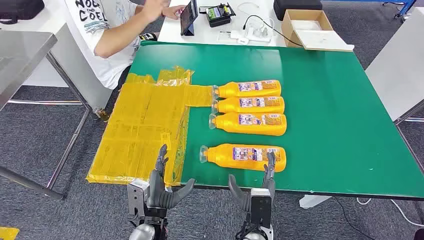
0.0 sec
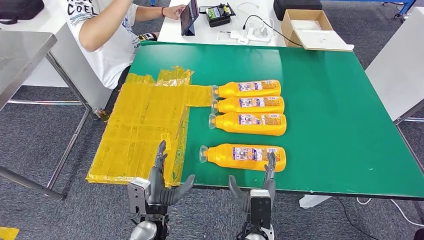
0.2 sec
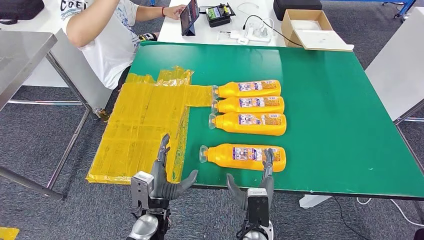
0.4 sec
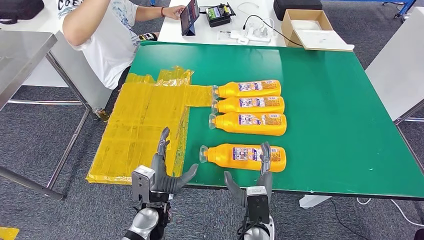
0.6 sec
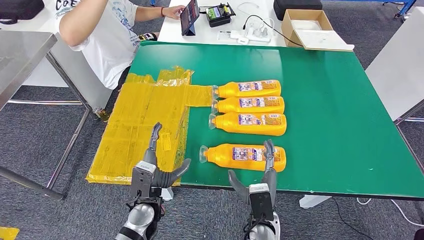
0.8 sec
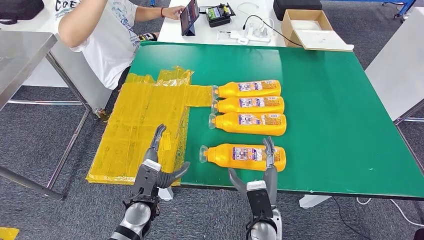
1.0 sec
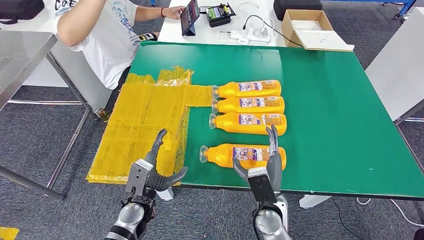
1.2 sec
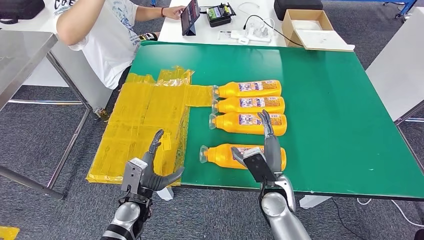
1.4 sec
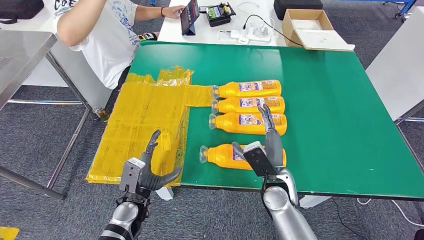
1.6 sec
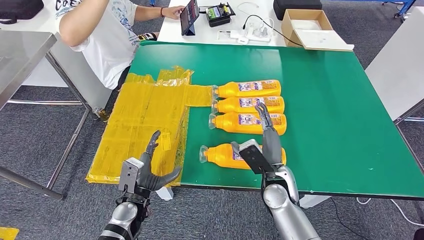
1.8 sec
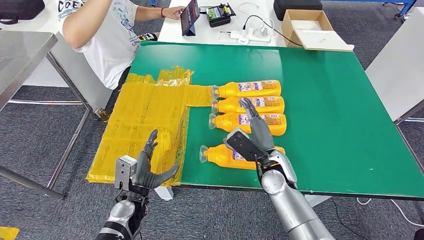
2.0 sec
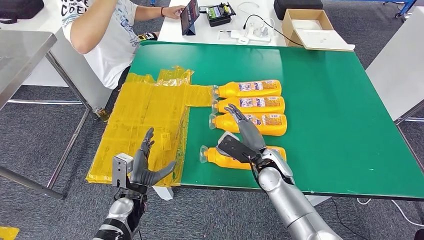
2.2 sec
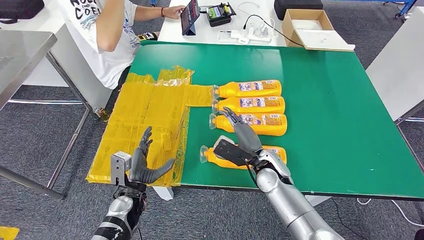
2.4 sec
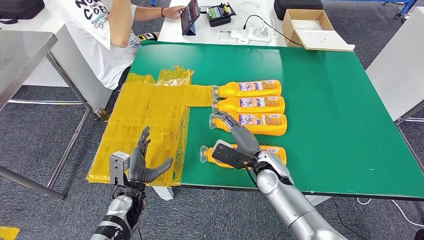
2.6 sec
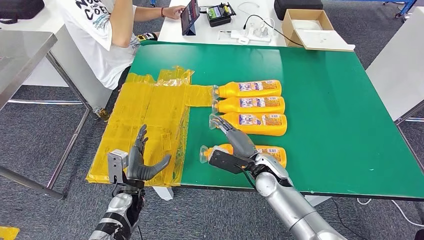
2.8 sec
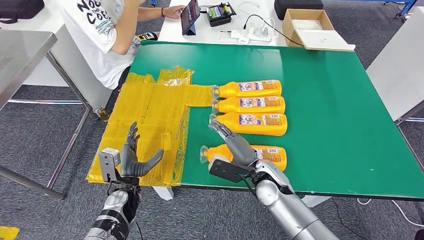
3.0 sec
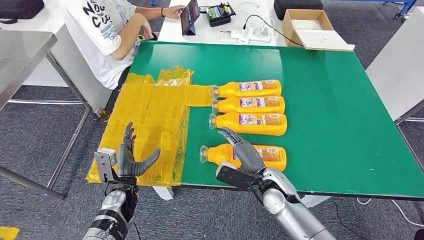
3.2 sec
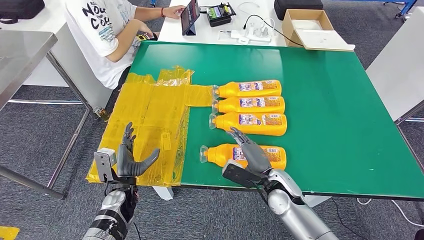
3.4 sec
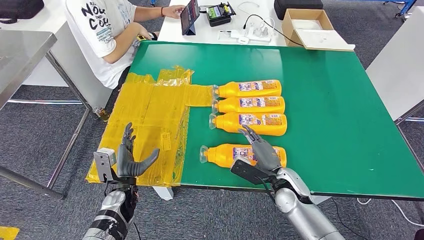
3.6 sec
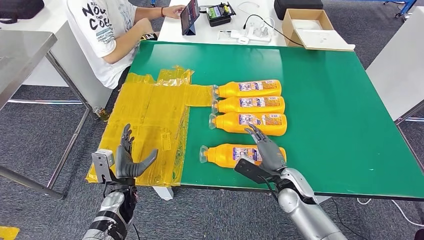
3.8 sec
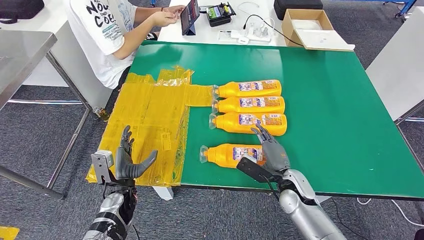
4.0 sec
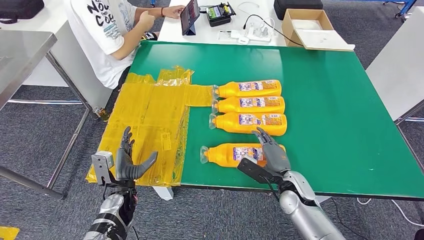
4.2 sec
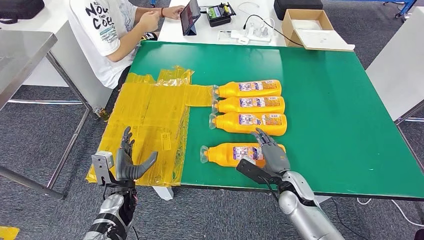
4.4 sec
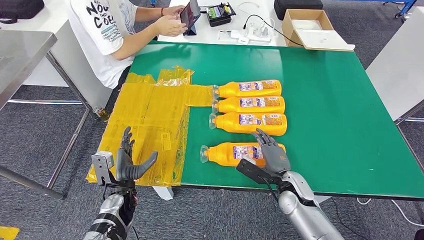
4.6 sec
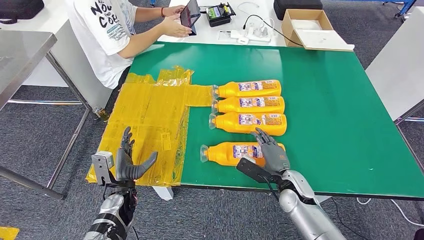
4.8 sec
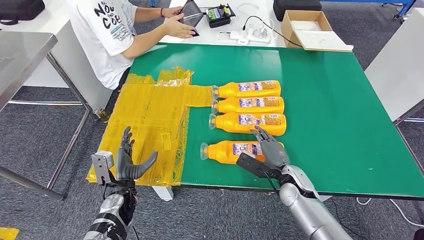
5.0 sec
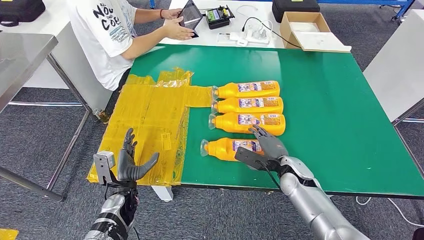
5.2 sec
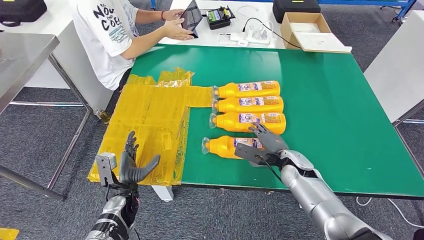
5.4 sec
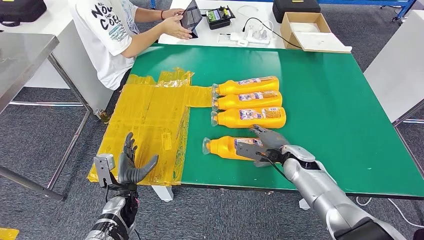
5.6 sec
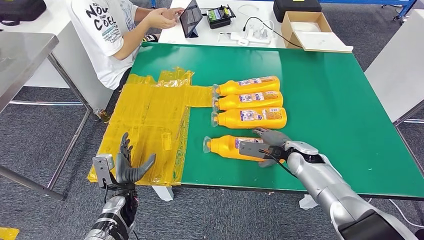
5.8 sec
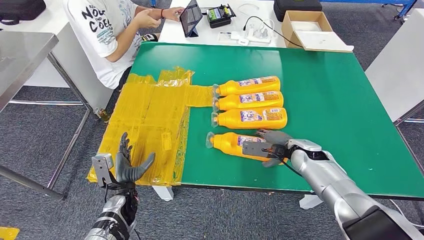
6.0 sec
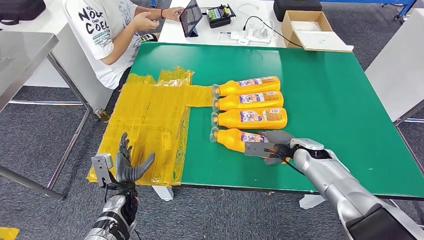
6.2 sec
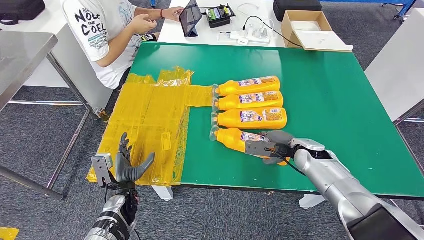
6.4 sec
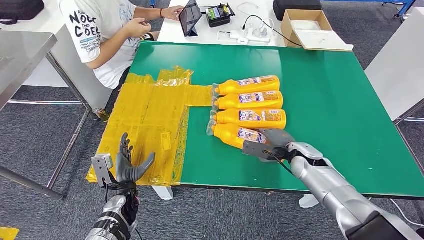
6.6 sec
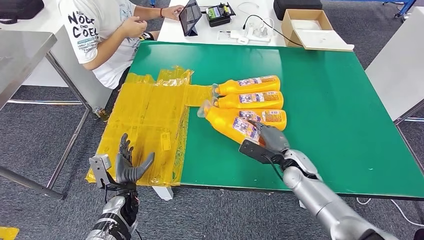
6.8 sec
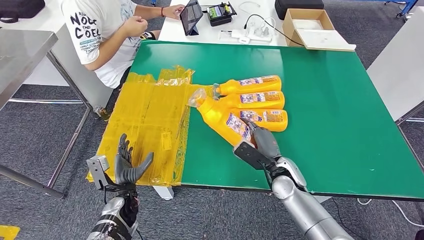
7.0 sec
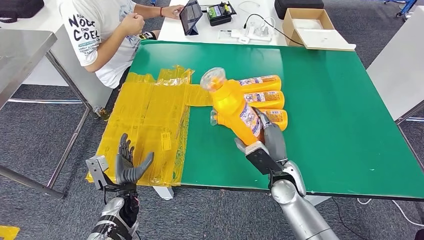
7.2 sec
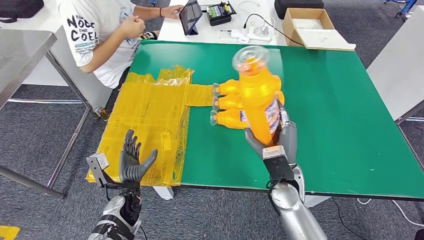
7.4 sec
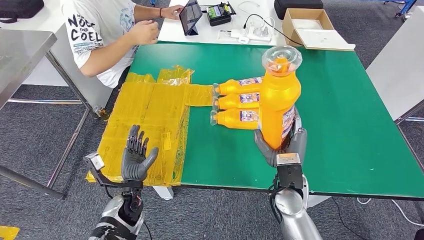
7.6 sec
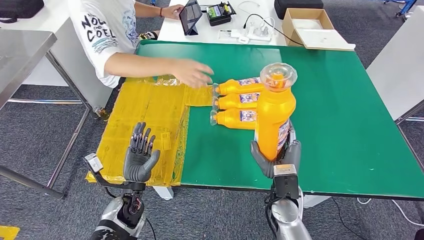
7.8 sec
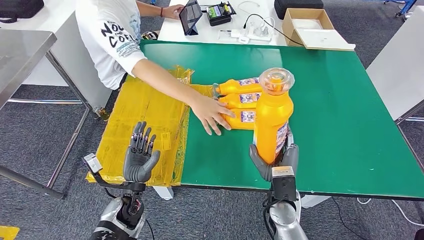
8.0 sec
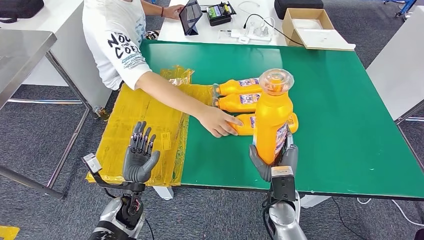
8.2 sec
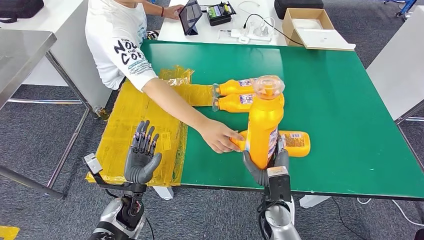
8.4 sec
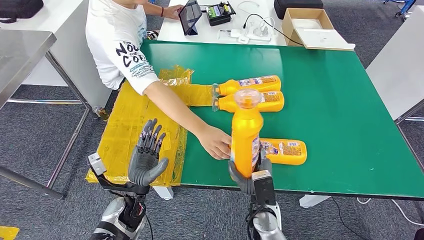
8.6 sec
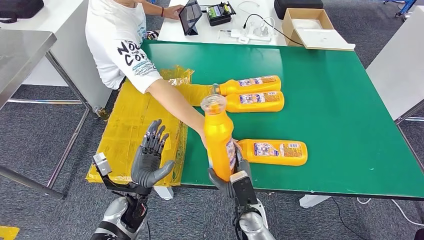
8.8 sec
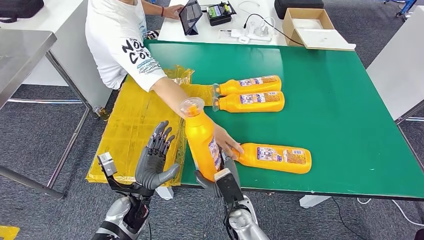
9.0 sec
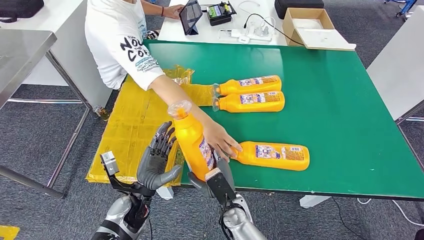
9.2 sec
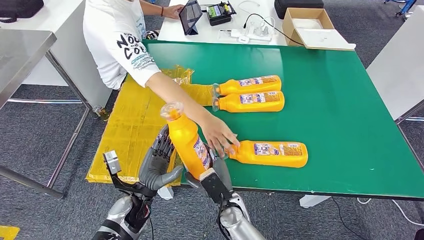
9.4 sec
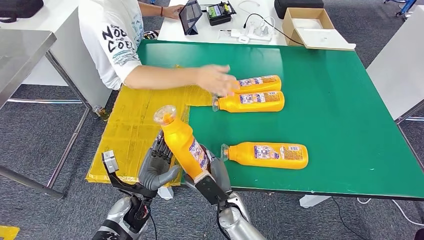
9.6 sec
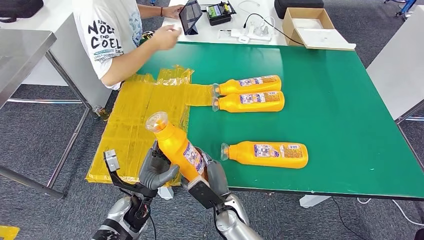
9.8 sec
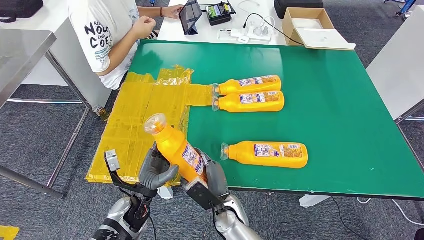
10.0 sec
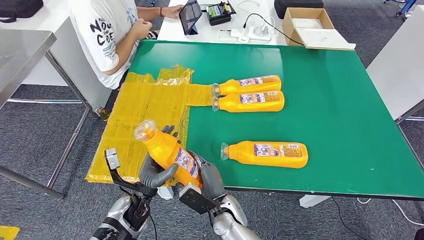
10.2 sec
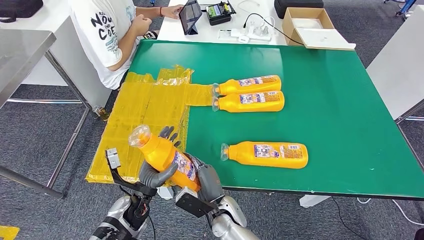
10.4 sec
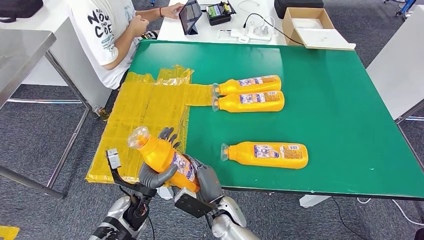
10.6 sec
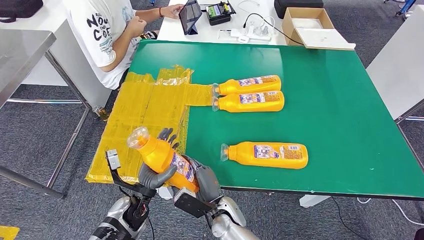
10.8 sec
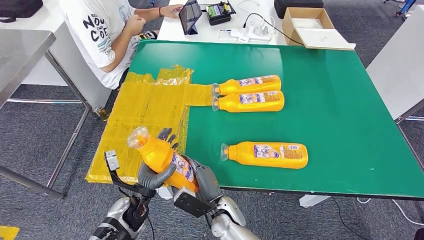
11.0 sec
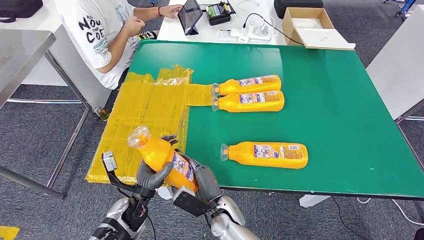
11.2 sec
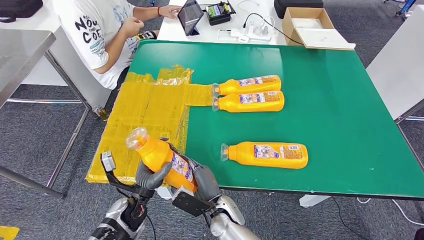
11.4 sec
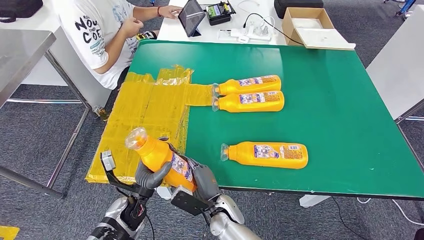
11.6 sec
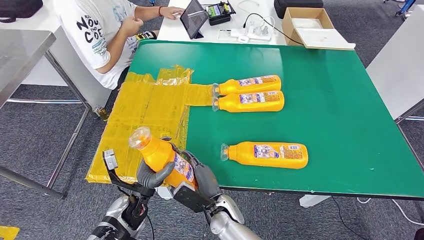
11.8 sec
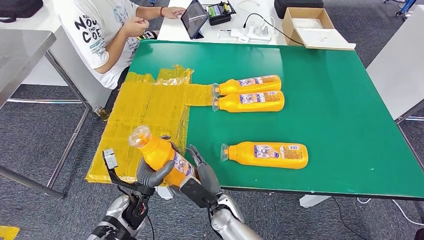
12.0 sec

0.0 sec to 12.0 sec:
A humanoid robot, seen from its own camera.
Step, 0.0 sec to 7.4 sec: Take the fast-moving consumer goods bottle from the table.
3.0 sec to 4.4 sec: The right hand goes roughly 10 cm to the right.
4.4 sec to 6.0 sec: The right hand goes roughly 10 cm forward and upward.
10.4 sec to 12.0 sec: The hands make only small movements.

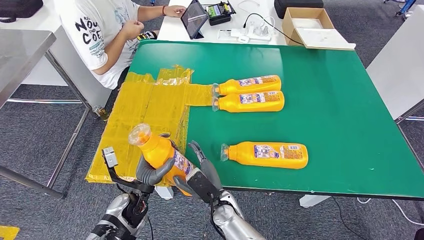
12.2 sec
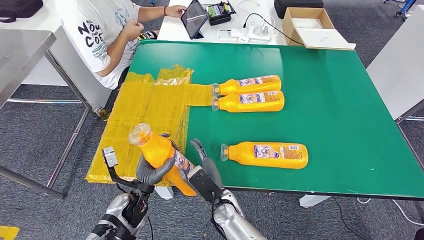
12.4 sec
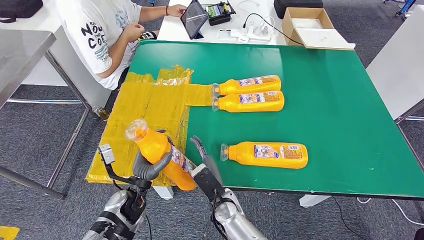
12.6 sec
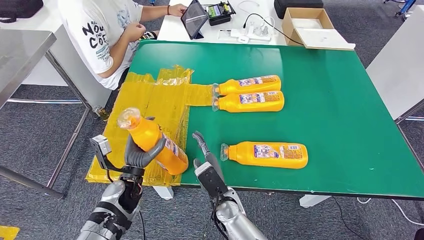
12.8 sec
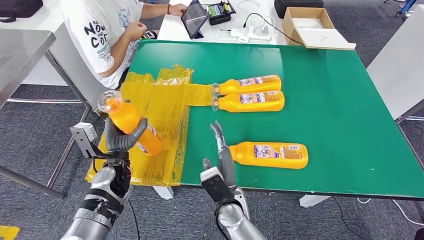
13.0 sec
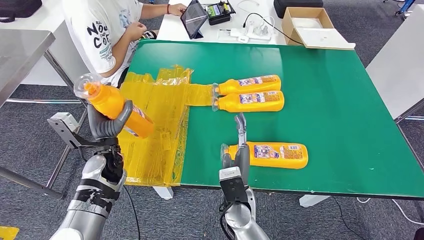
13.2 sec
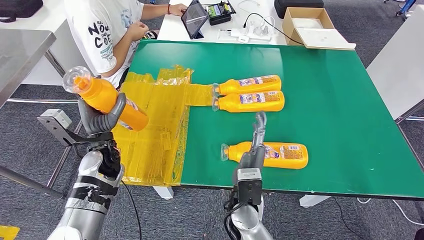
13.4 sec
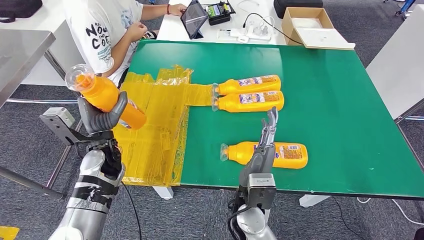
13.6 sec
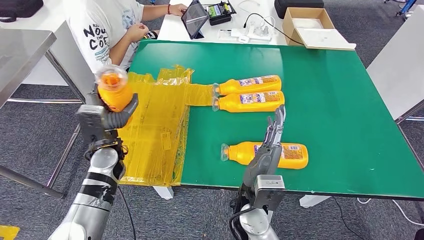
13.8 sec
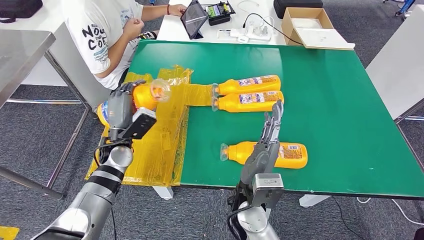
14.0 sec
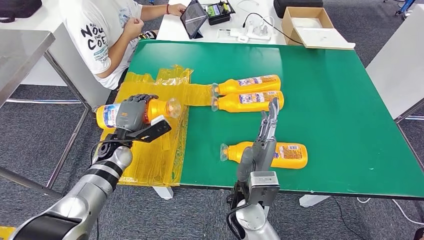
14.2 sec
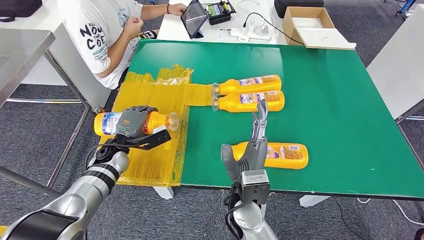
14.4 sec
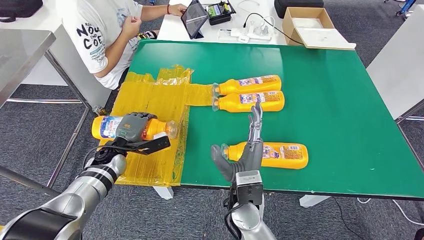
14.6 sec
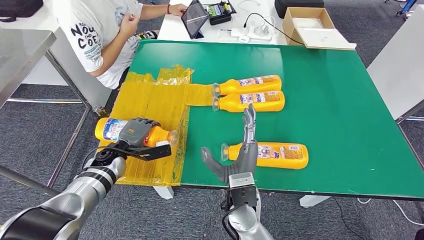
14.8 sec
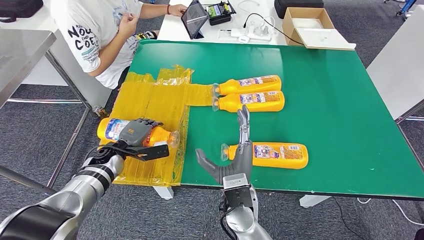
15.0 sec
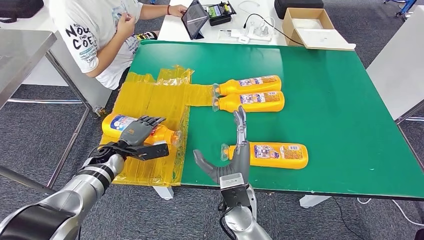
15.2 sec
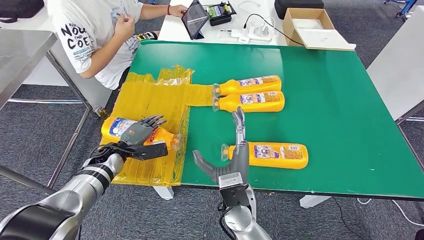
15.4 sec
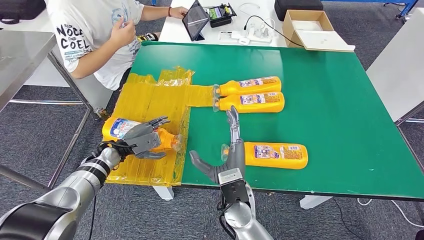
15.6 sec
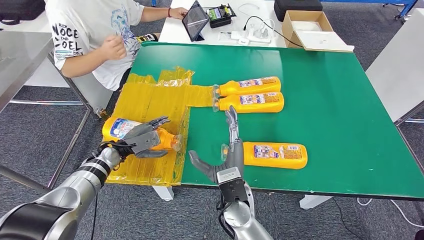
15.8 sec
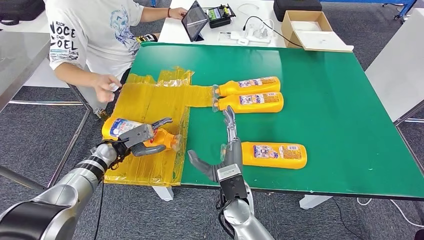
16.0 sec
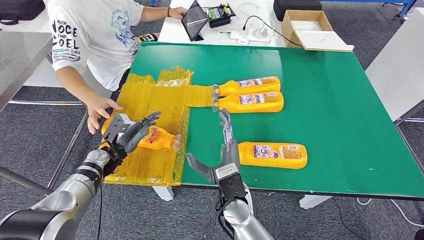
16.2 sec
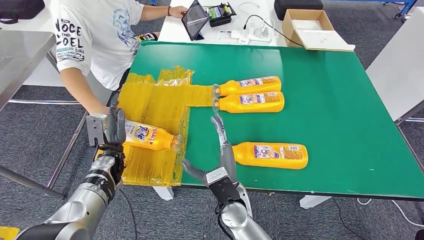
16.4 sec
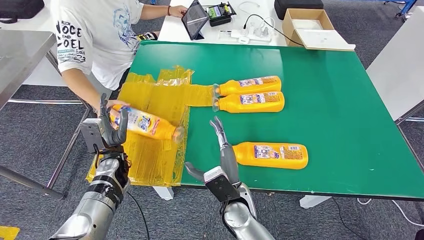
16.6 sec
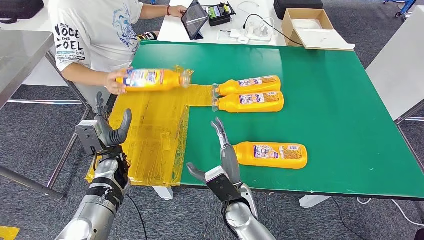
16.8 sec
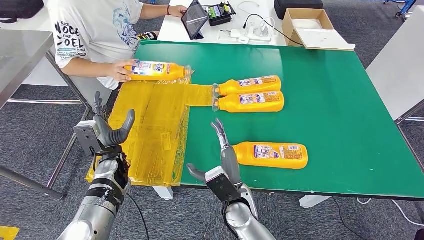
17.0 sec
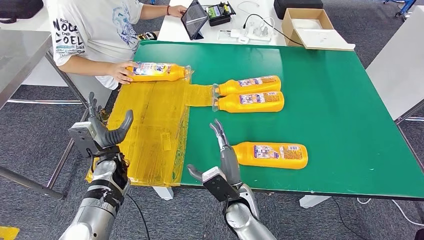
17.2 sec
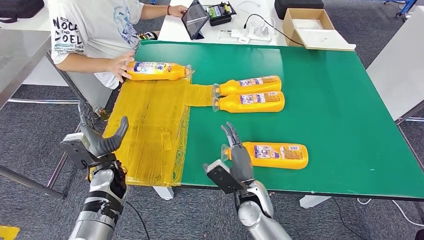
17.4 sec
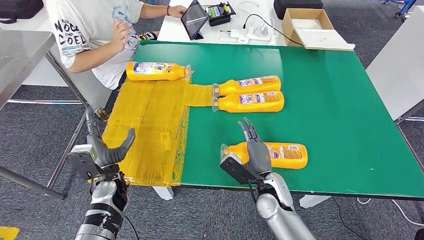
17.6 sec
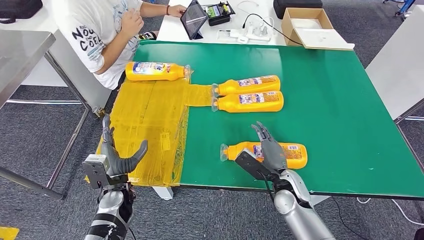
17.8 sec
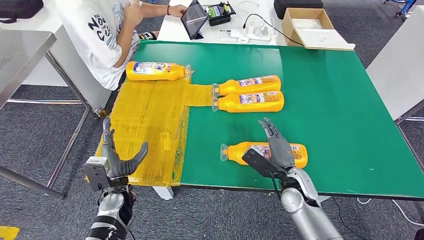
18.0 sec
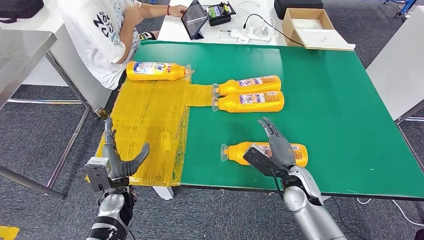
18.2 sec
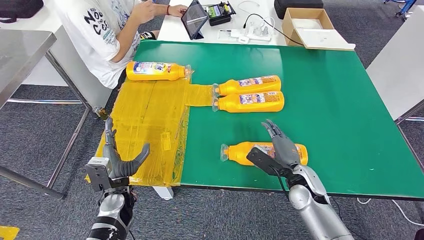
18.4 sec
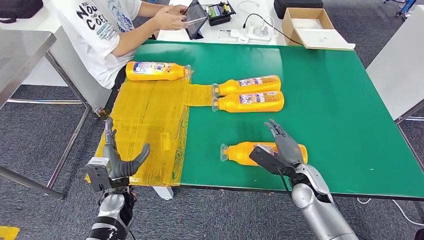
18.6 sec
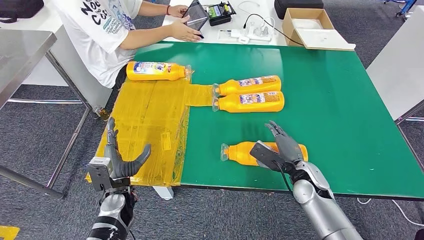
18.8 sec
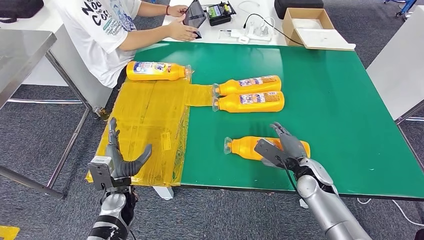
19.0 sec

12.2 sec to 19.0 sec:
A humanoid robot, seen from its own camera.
Step, 12.2 sec to 15.8 sec: Flip the fast-moving consumer goods bottle to the front side.
12.2 sec to 13.6 sec: The right hand goes roughly 10 cm upward; the left hand travels upward, forward and to the left by about 15 cm.
13.6 sec to 15.0 sec: The left hand shifts about 10 cm downward.
17.6 sec to 19.0 sec: The right hand goes approximately 10 cm to the right.
